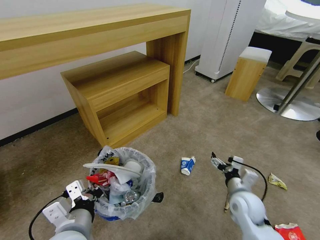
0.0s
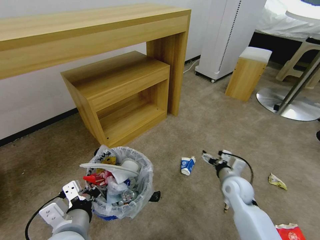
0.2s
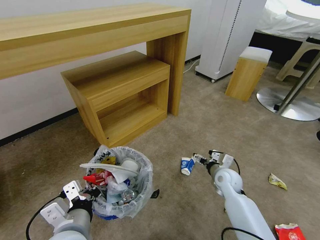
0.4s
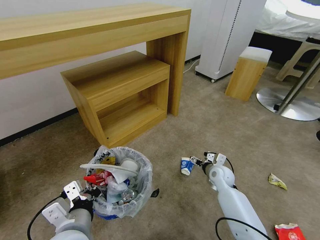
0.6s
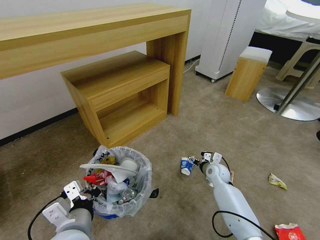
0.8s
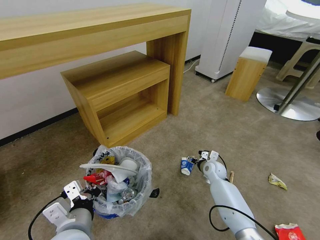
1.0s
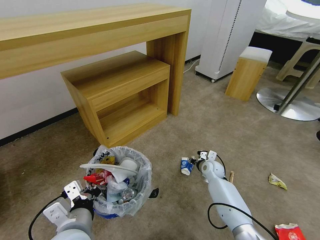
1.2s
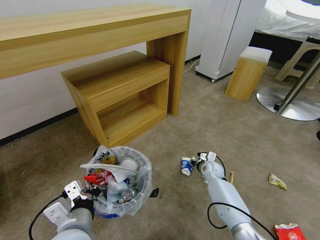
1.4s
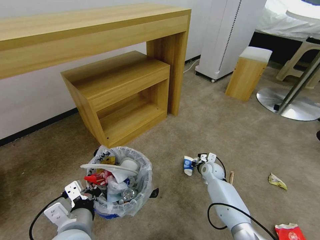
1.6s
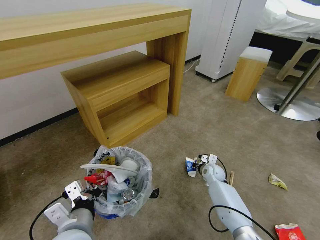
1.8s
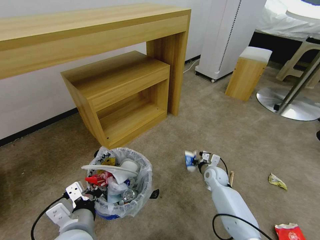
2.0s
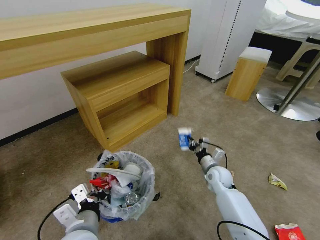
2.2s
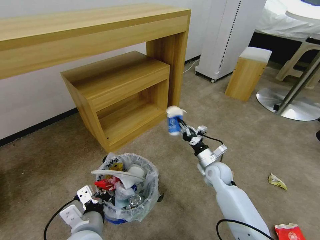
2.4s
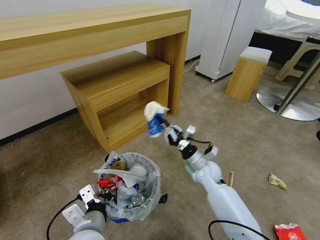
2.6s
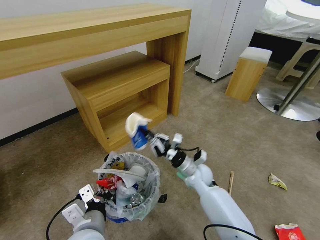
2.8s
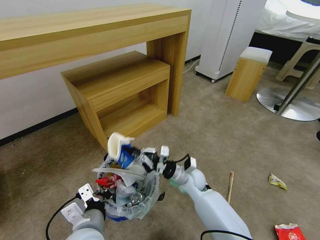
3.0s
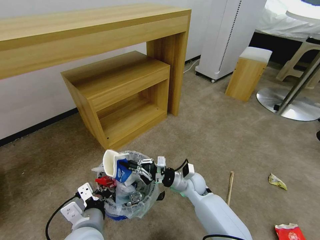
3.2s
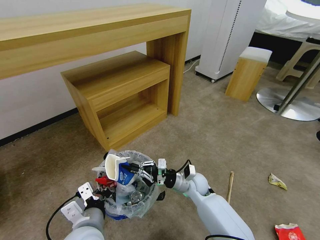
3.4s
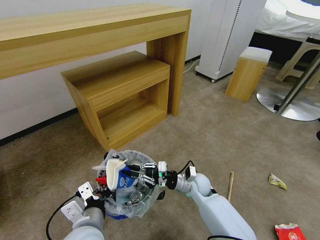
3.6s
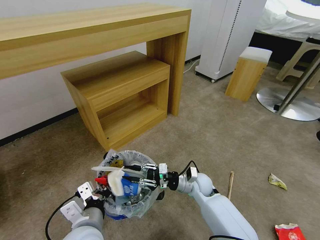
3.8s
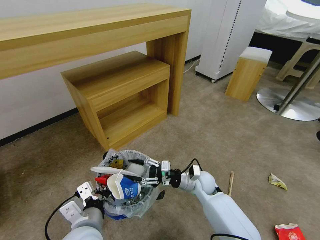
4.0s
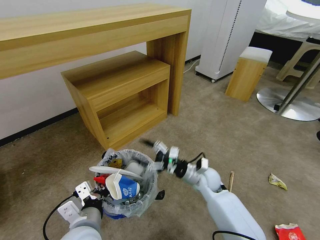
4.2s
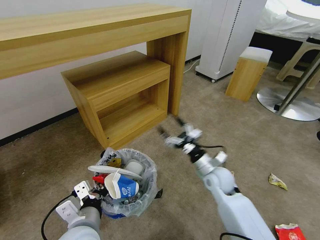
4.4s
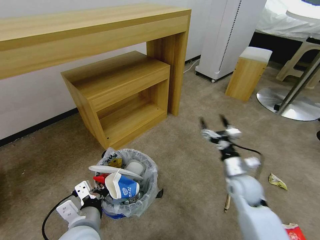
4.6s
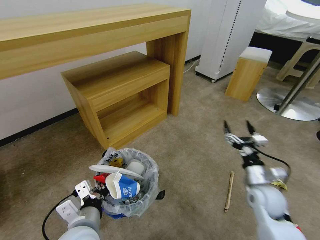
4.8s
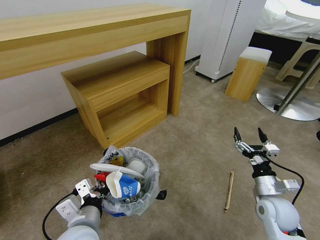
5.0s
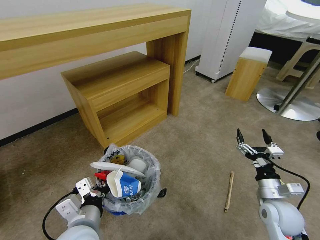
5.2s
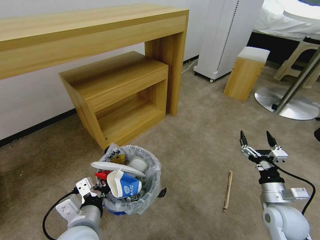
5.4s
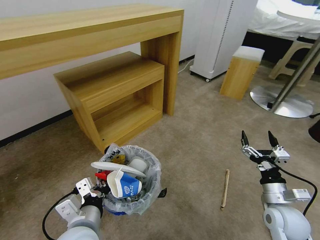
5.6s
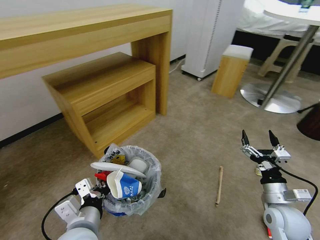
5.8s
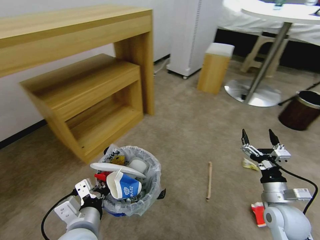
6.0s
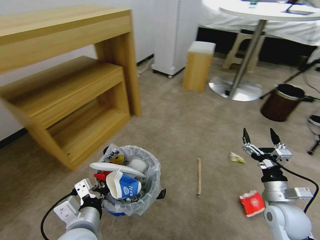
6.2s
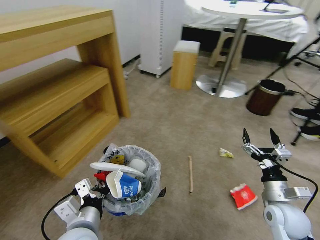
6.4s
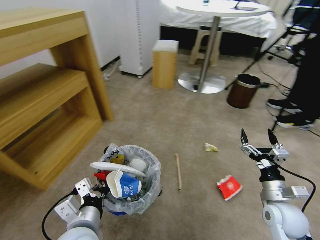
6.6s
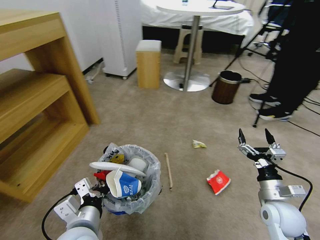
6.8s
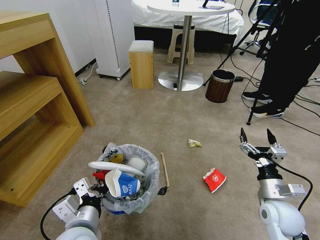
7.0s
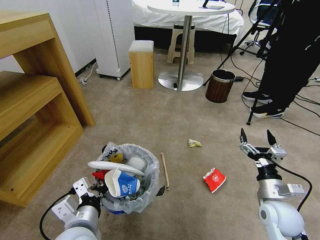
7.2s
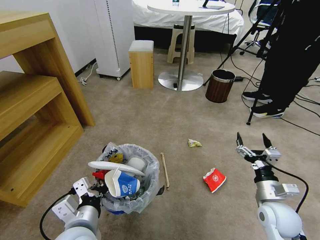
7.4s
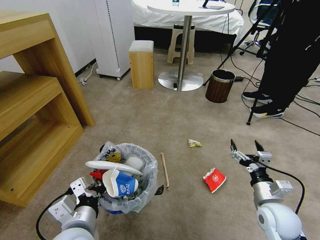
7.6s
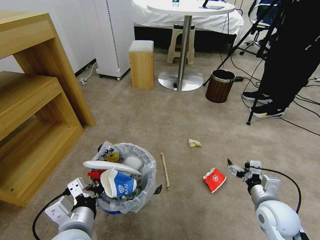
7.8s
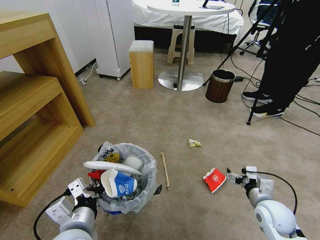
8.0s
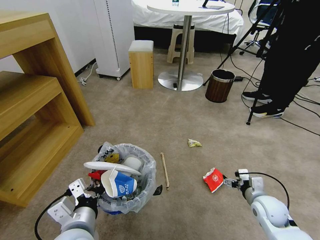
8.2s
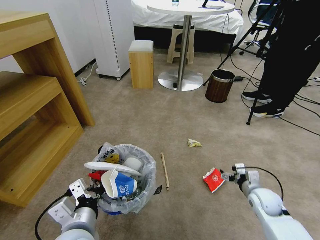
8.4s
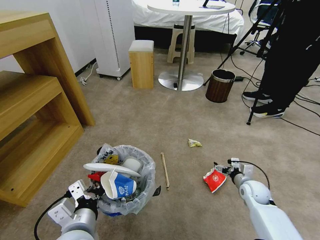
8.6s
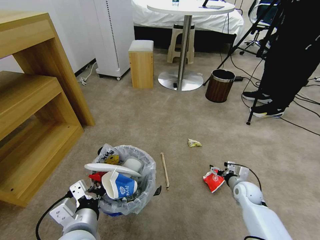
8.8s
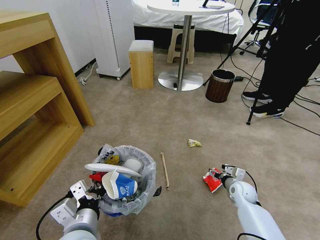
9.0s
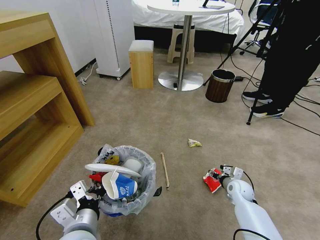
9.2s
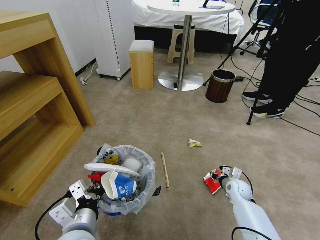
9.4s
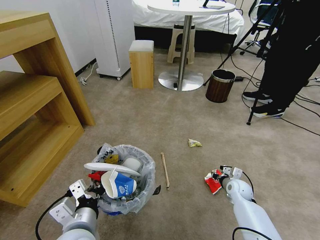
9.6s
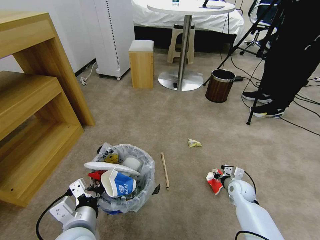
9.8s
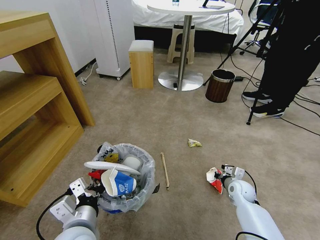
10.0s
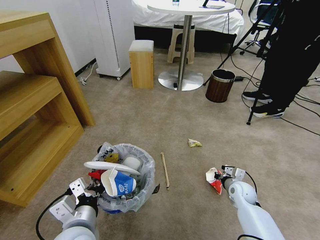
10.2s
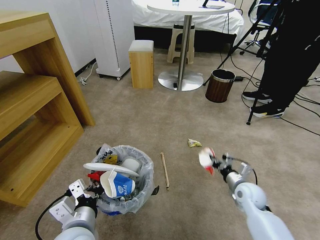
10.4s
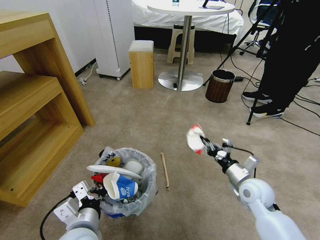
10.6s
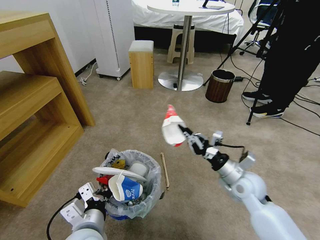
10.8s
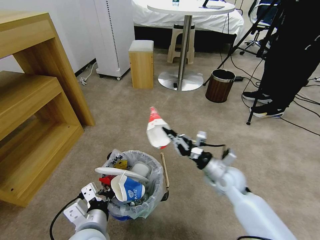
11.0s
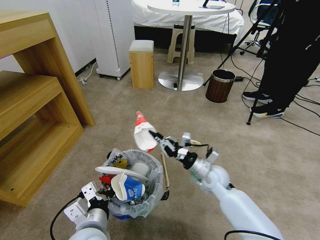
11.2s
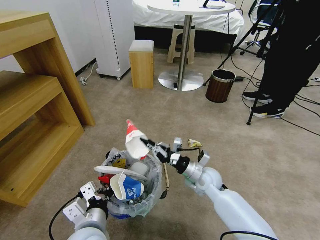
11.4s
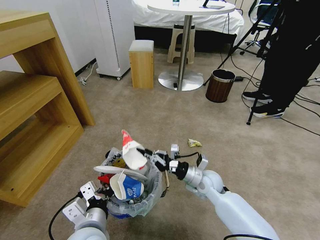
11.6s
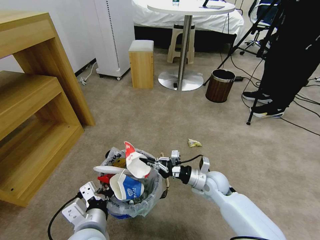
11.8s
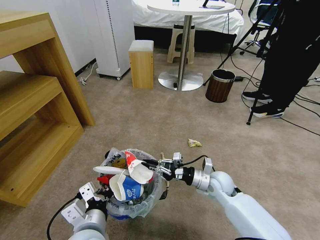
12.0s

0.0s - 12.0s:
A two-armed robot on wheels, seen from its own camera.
Task of the whole recording: Pick up the trash bin and place the garbage on the floor into it.
0.0s - 1.6s: The right gripper is displaced forward and downward by roughly 25 cm, and closes.
1.6s - 3.0s: The right gripper goes some 15 cm to the left, upward and backward.
3.0s - 4.4s: The right gripper moves to the right, roughly 10 cm, and opens.
4.4s - 6.0s: The right gripper heads to the right and backward, covering about 20 cm.
7.6s - 9.0s: The right gripper is displaced downward and forward by some 20 cm.
9.0s - 10.4s: The right gripper travels upward by roughly 5 cm, and closes up.
10.4s - 12.0s: The right gripper shifts about 10 cm to the left.

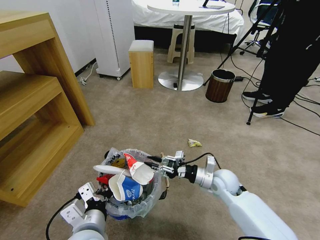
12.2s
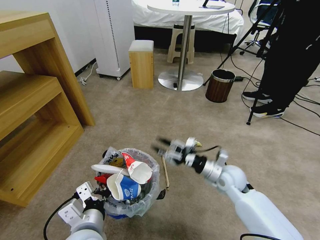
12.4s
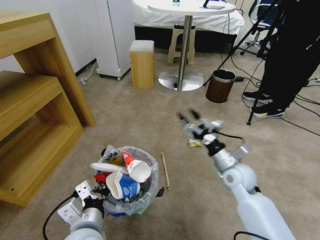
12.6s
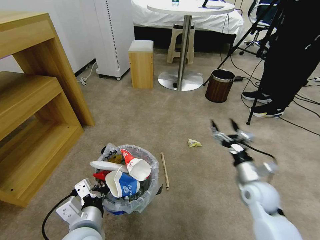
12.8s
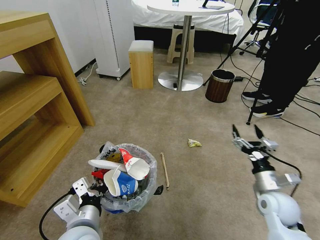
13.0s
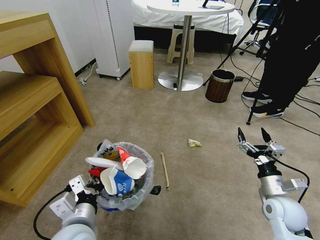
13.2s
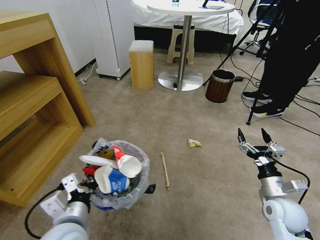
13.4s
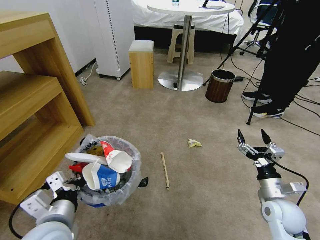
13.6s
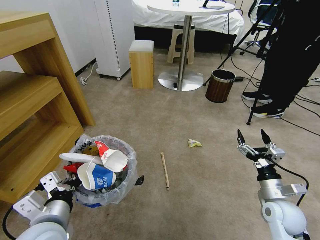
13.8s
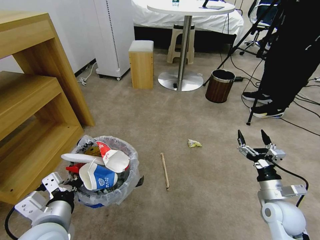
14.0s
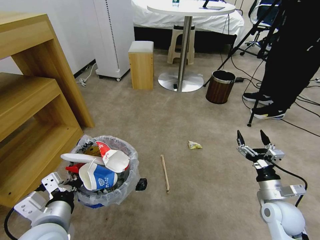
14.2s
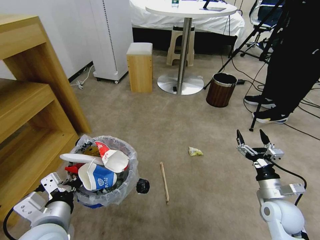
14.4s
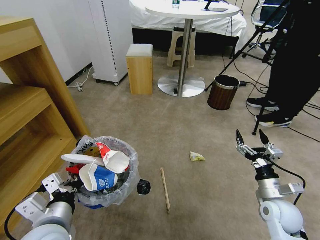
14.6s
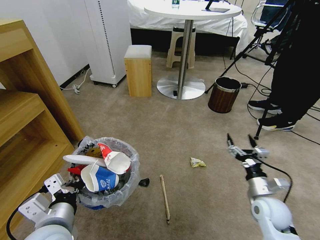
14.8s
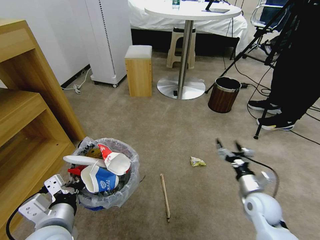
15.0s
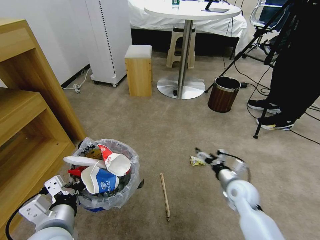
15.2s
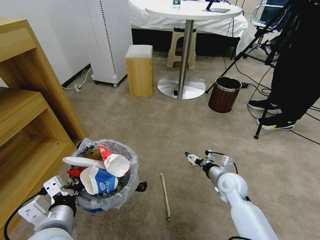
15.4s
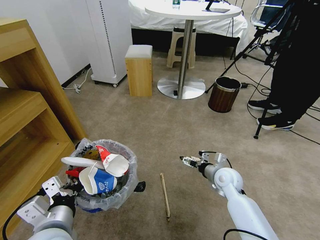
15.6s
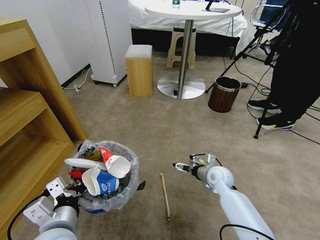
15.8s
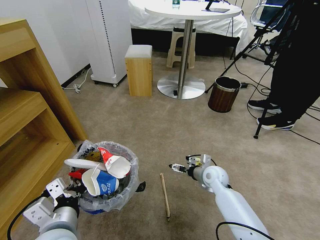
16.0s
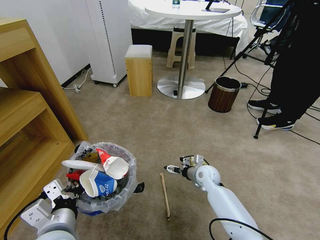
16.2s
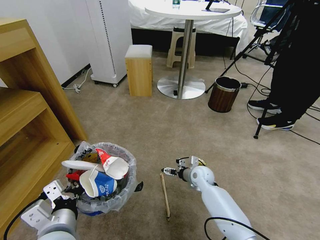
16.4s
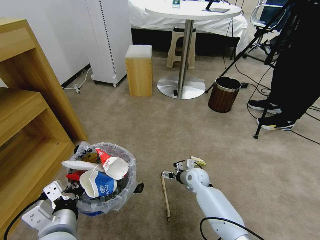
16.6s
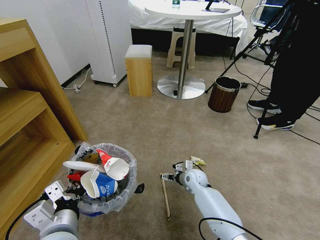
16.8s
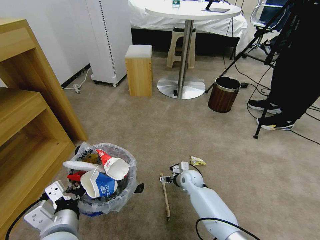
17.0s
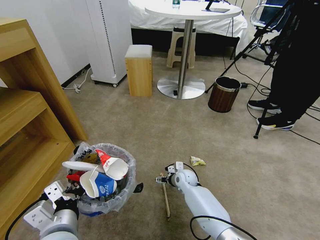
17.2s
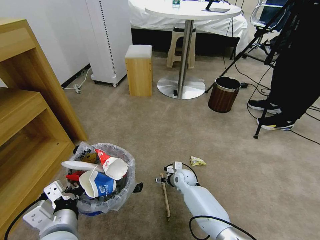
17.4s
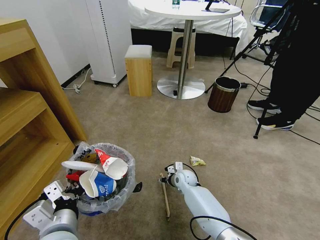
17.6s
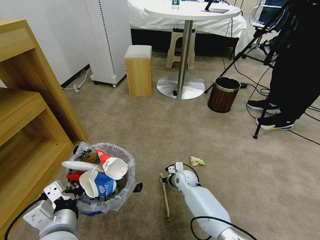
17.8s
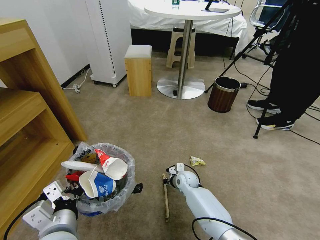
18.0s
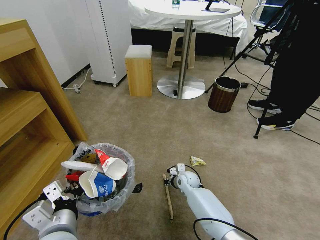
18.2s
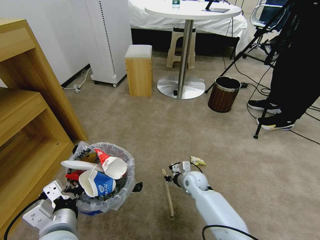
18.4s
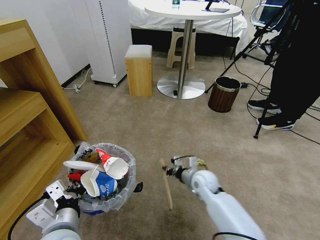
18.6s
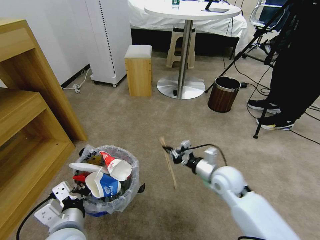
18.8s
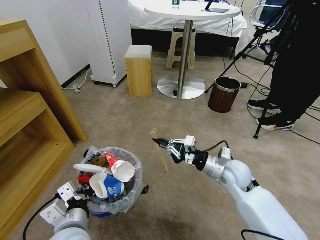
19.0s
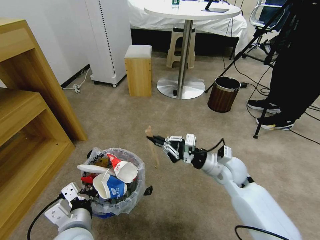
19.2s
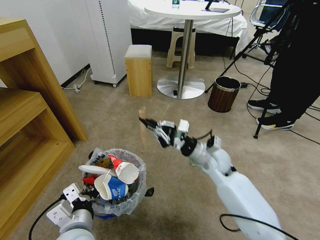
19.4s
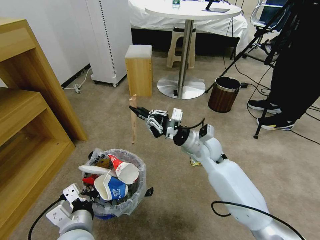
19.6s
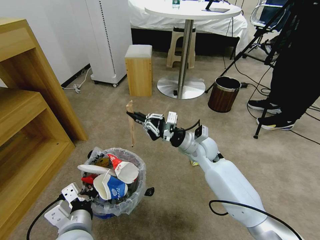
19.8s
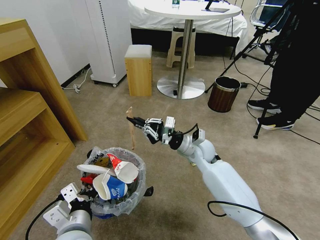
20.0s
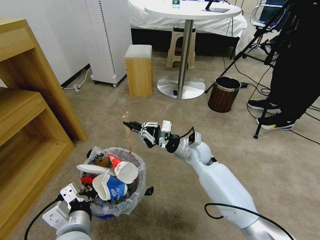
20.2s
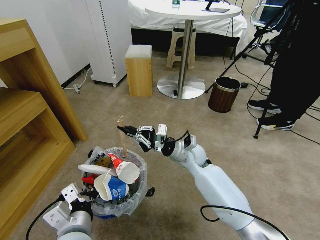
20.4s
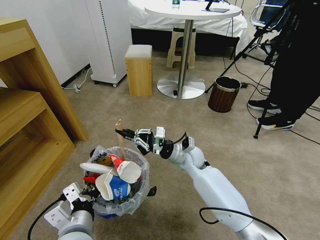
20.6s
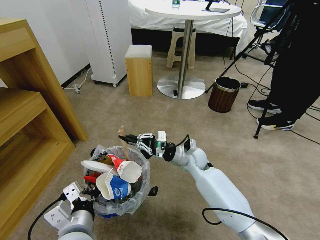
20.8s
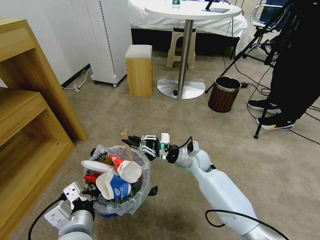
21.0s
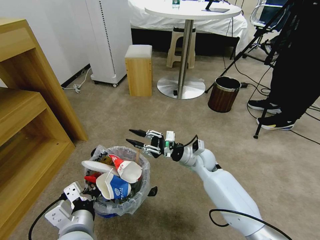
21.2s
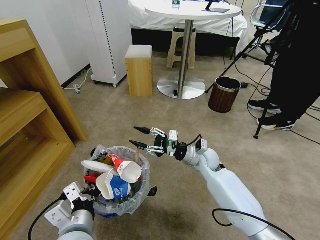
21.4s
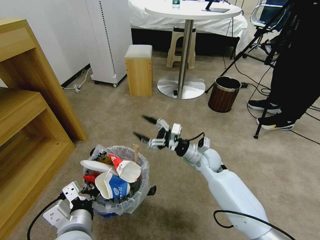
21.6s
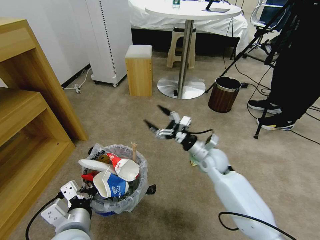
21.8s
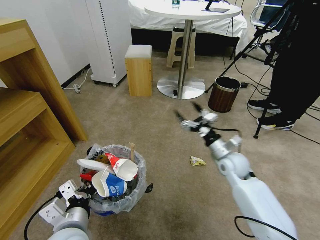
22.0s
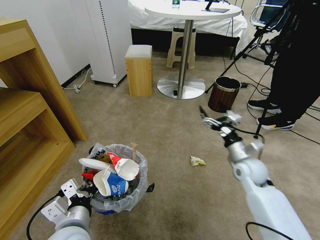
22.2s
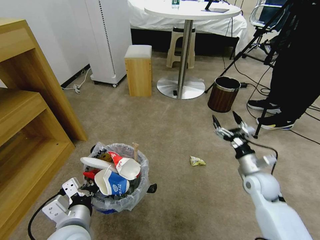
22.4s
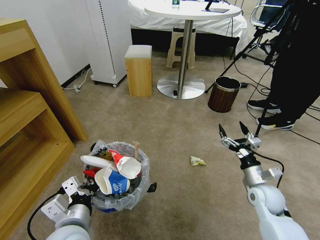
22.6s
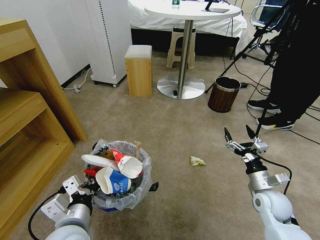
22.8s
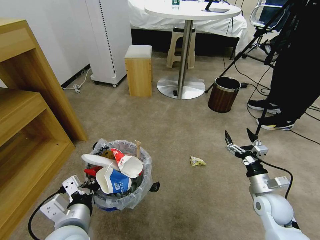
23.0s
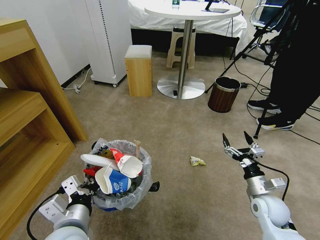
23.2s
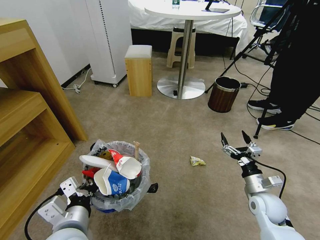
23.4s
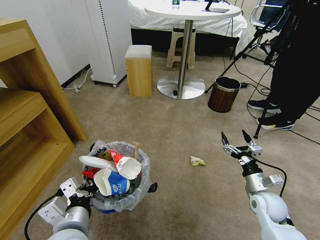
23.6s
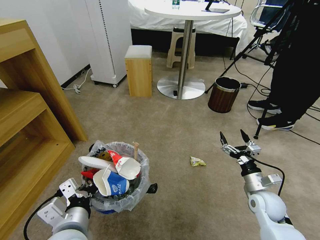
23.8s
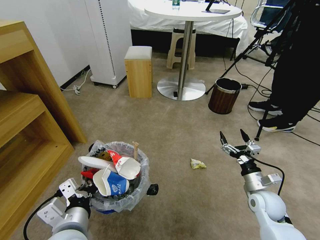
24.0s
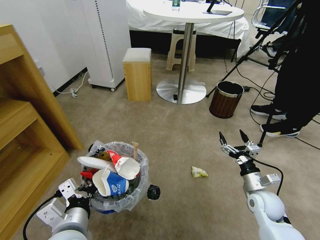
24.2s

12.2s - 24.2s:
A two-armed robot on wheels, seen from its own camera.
Task of the whole recording: Pick up the trash bin and place the garbage on the floor into it.
12.2s - 13.8s: The right gripper heads to the right and backward, covering some 20 cm, and opens its fingers. Meanwhile the left gripper heads to the left, covering approximately 10 cm.
13.8s - 15.2s: The right gripper heads to the left and forward, covering some 10 cm.
15.2s - 16.6s: The right gripper heads to the left, forward and downward, covering about 20 cm.
16.6s - 18.2s: The right gripper ends up some 5 cm from where it was, and closes its fingers.
18.2s - 19.8s: The right gripper travels upward by some 25 cm.
19.8s - 21.2s: The right gripper travels downward by approximately 5 cm, and opens up.
21.2s - 22.6s: The right gripper travels to the right and backward by some 25 cm, and opens its fingers.
